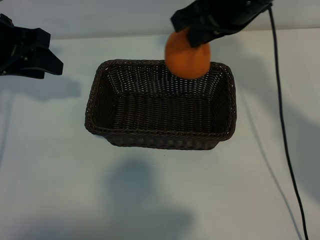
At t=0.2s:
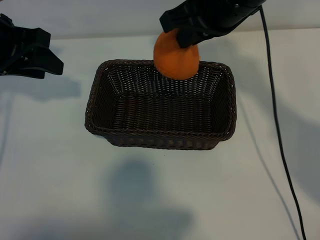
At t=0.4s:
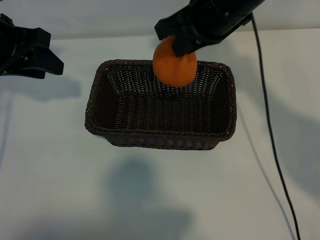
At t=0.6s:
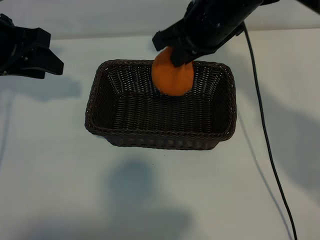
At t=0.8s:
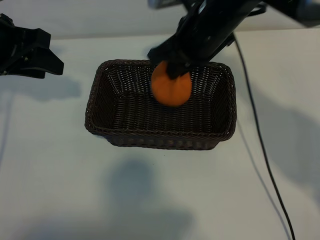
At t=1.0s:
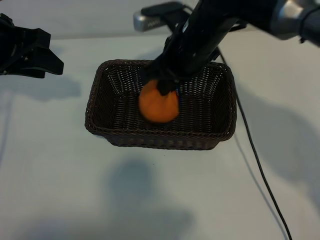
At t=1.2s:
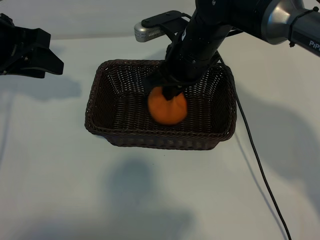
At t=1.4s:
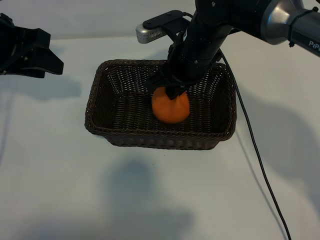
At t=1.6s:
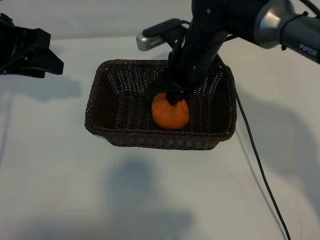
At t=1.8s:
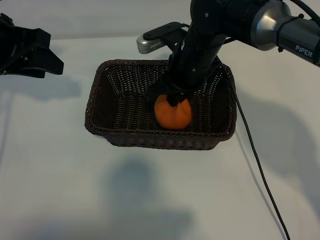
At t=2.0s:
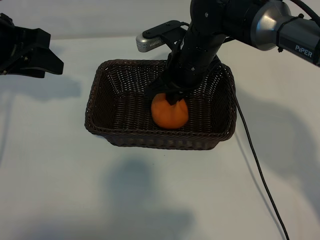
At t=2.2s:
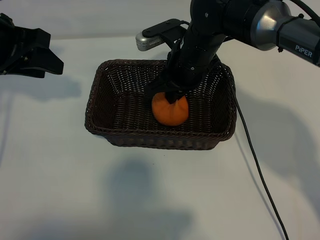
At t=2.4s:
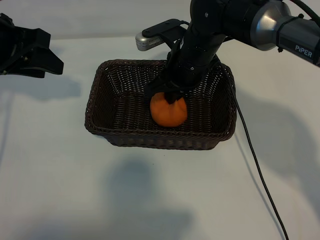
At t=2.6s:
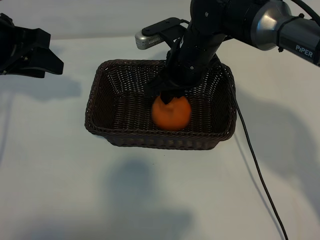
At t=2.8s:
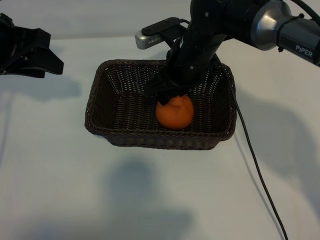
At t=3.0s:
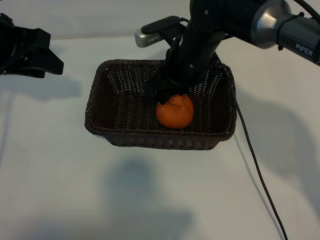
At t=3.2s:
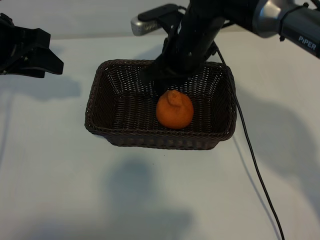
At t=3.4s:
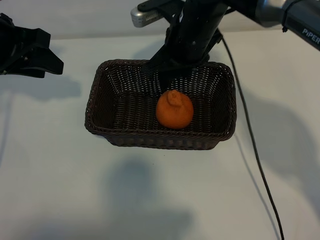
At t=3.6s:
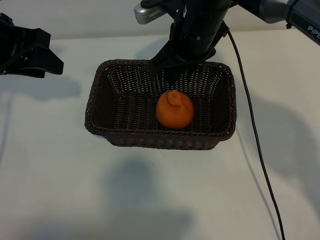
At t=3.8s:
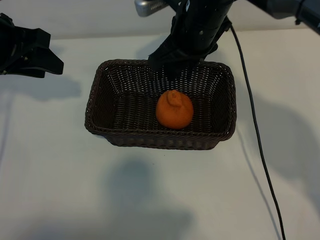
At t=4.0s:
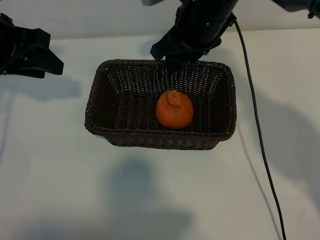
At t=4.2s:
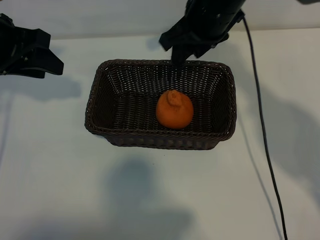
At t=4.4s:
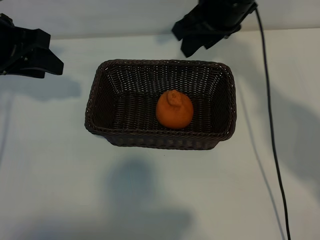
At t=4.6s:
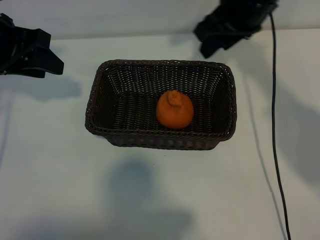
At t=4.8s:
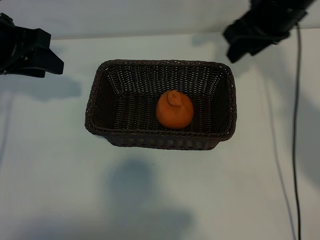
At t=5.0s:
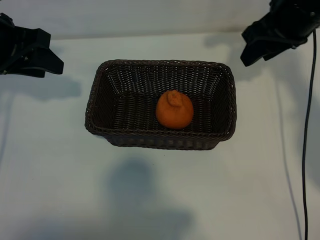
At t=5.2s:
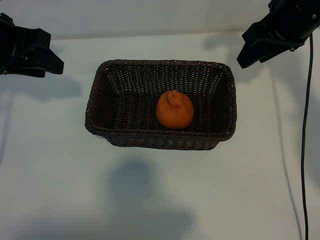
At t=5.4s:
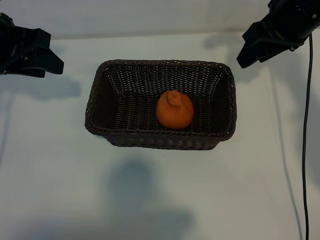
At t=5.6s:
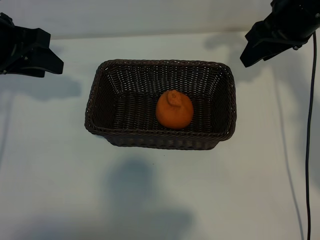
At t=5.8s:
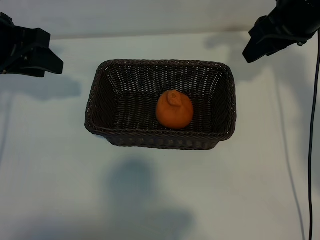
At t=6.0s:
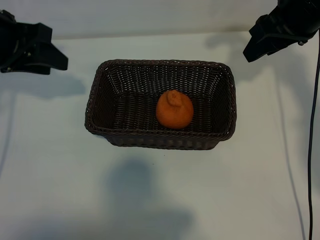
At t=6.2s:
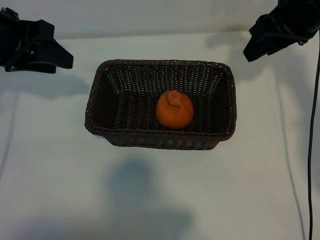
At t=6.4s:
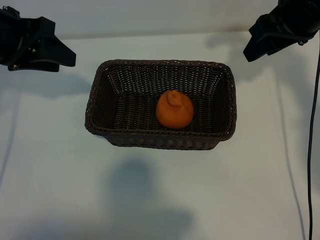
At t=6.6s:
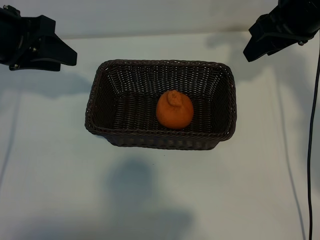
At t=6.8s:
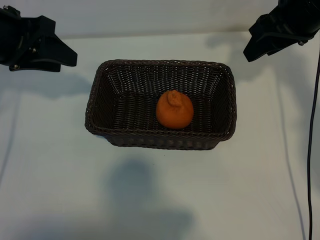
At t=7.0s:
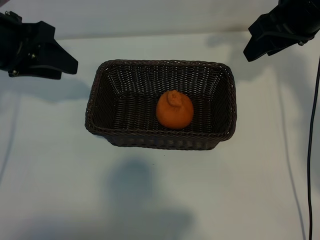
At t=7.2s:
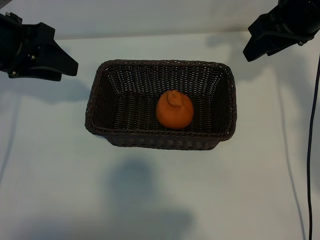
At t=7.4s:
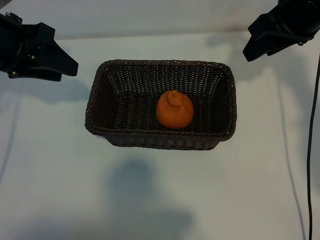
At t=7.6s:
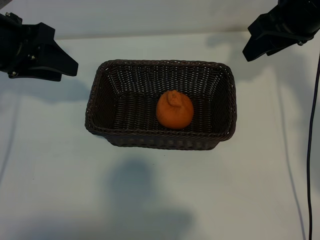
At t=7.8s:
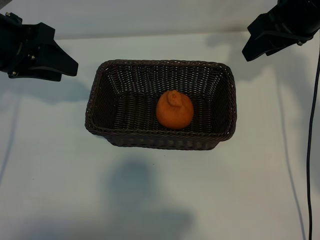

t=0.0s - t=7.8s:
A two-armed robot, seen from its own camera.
Task of the whole recording: pick up the orange and put it into the basket.
Step, t=0.0s - t=2.6s: Place the orange in the basket with right gripper.

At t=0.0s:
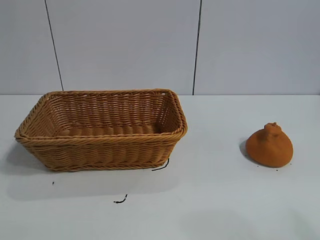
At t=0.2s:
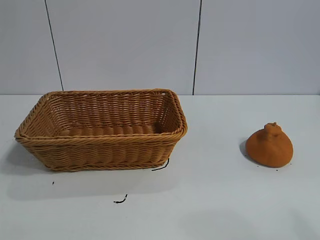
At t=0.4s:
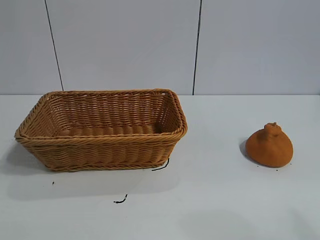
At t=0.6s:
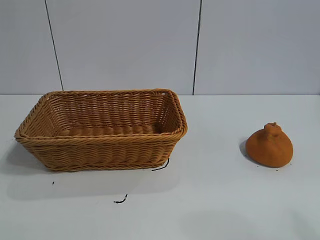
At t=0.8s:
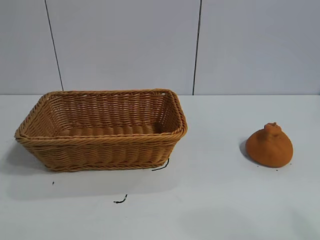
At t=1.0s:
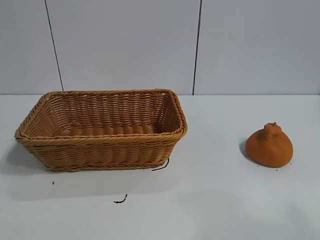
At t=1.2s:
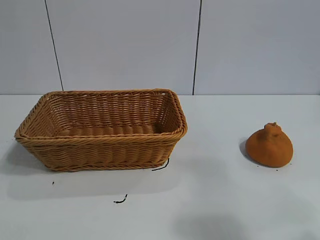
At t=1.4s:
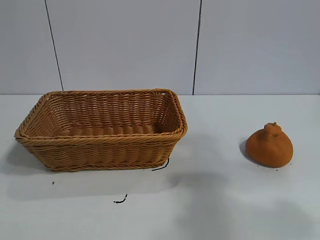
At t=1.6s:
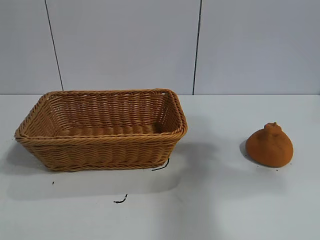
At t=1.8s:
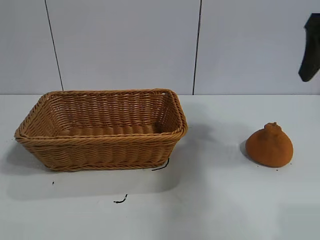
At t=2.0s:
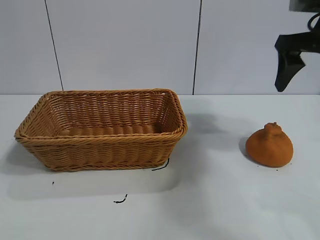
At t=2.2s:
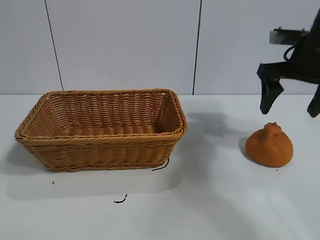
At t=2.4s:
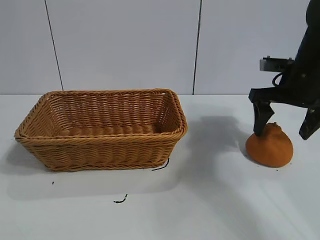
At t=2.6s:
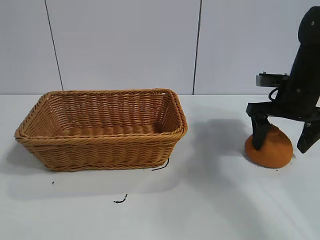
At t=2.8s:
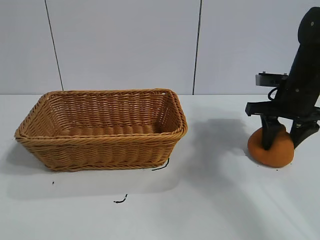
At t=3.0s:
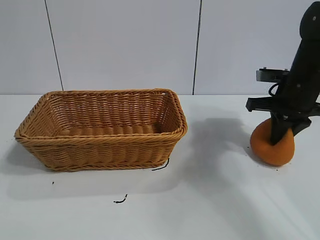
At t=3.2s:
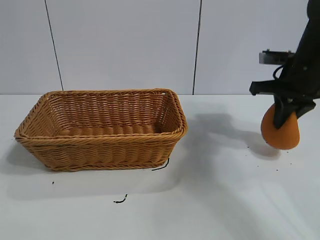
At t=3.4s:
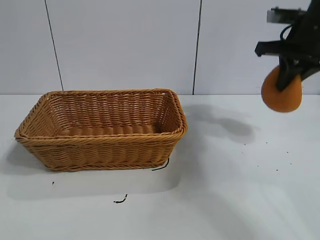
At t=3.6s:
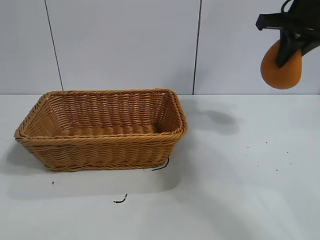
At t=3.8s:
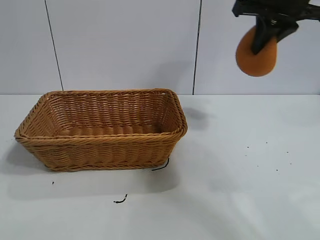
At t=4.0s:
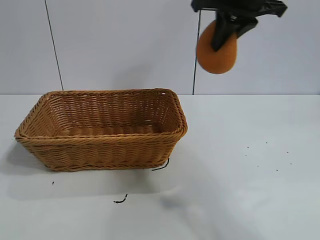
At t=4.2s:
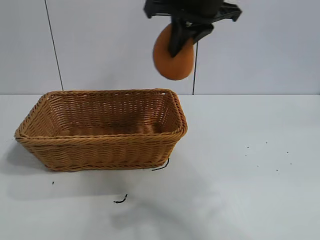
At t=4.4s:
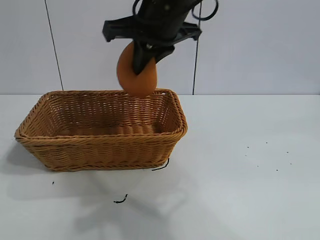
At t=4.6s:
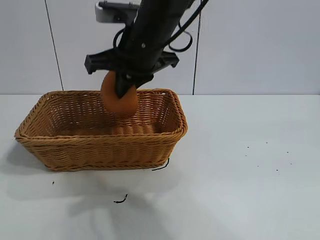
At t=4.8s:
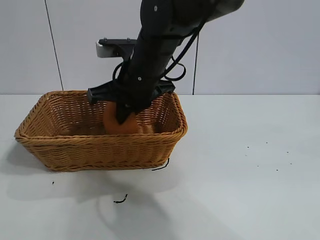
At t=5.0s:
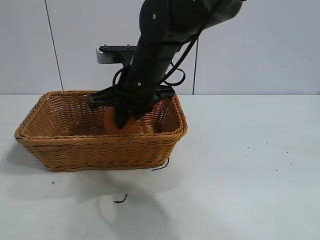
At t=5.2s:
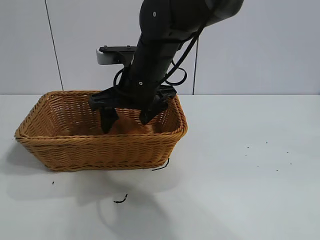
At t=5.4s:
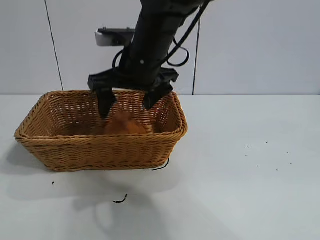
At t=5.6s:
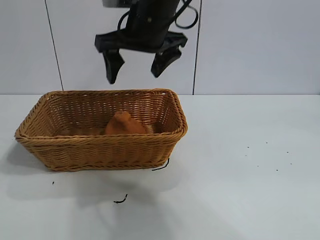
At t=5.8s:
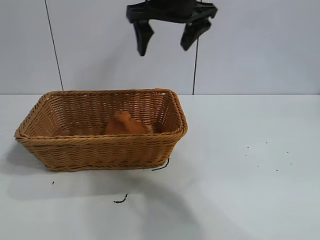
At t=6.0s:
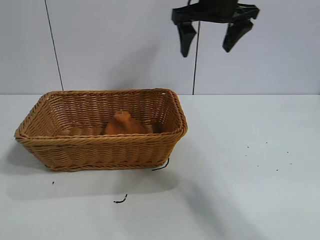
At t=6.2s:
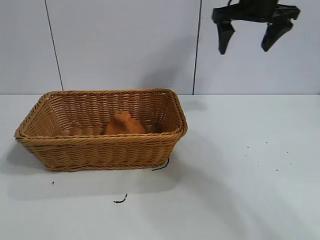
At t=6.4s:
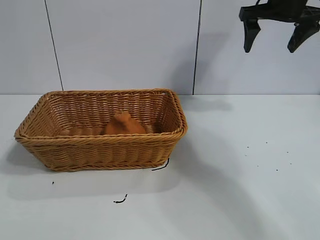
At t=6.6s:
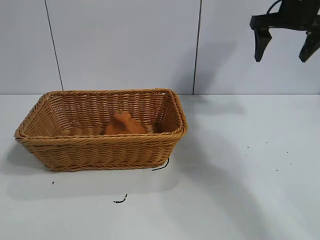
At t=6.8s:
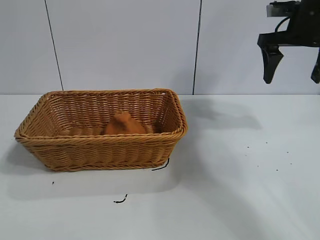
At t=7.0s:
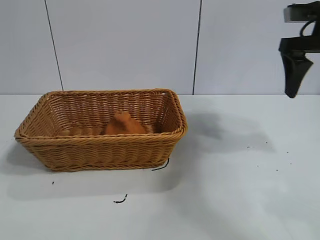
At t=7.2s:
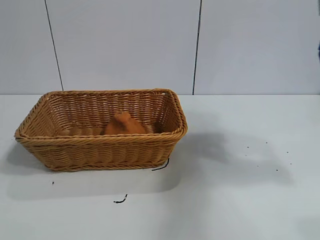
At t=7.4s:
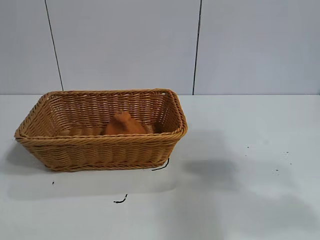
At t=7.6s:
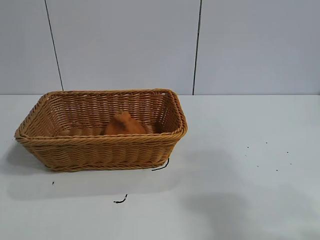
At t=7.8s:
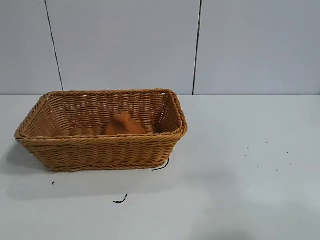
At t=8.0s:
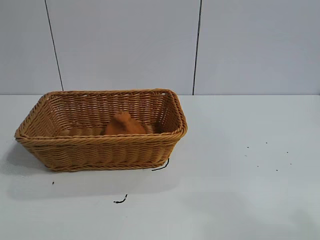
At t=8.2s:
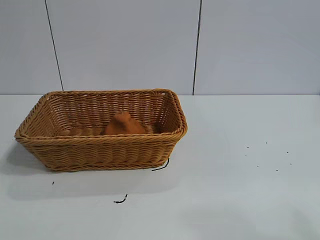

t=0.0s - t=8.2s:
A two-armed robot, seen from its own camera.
Task of the whole recording: pick up the orange and put it into the basket.
Step, t=0.8s - t=3.0s: Grasp the orange with right gripper.
Step, t=3.2s - t=5.2s: Place the orange in the basket with right gripper.
